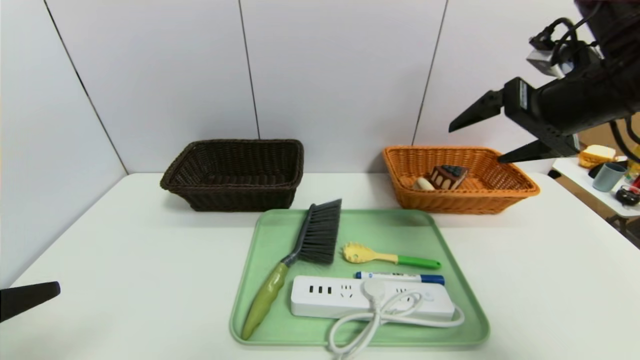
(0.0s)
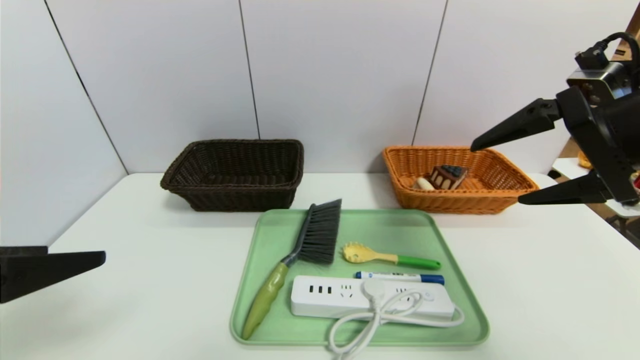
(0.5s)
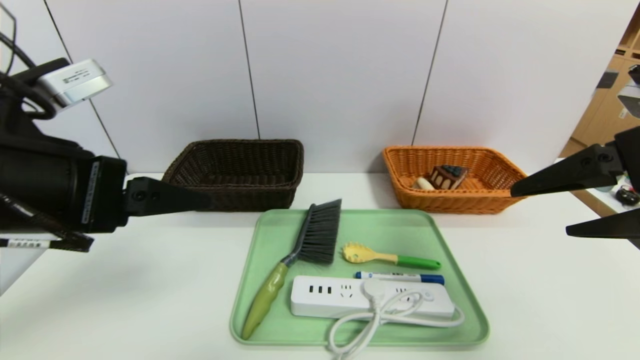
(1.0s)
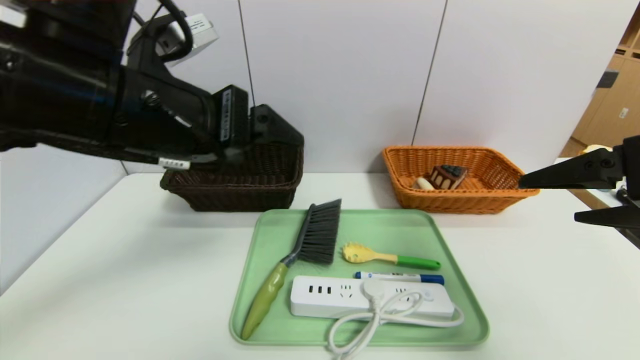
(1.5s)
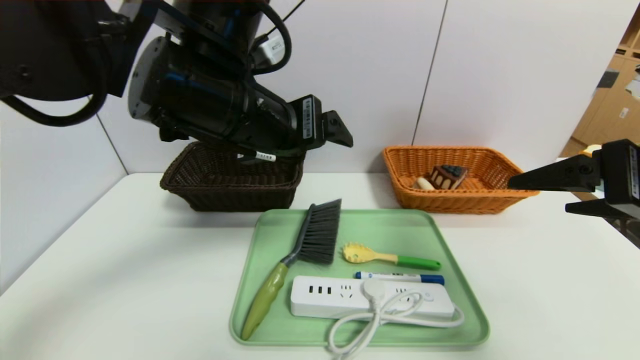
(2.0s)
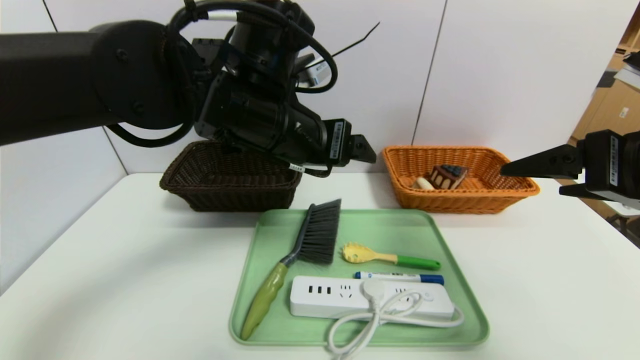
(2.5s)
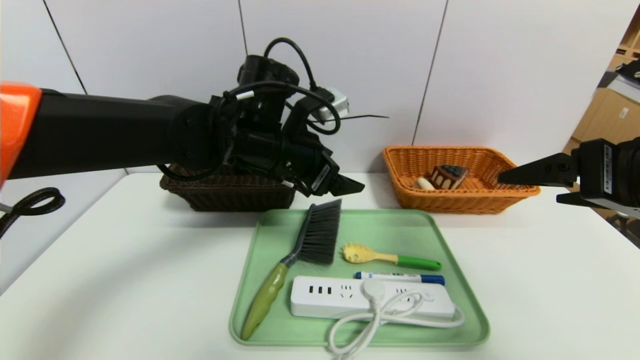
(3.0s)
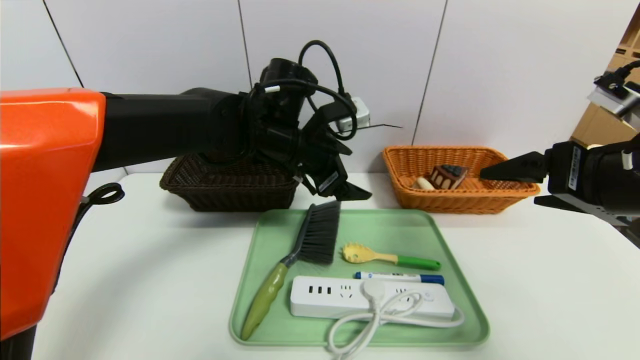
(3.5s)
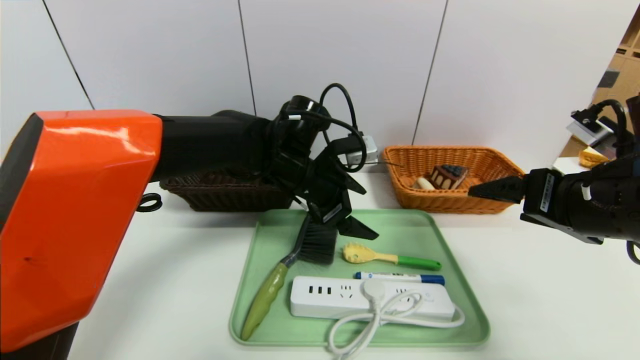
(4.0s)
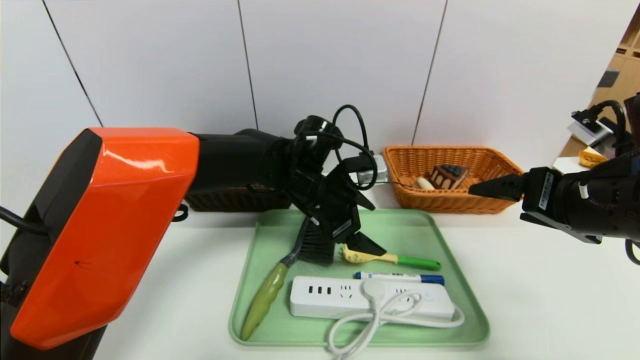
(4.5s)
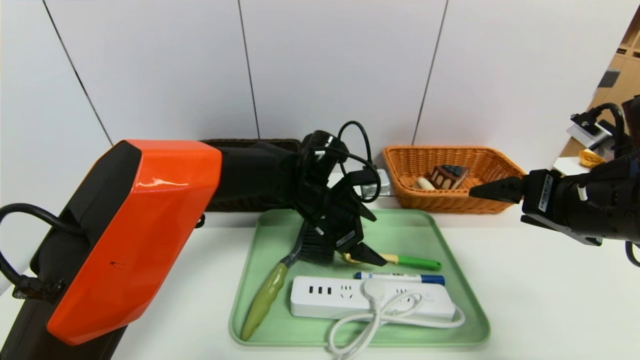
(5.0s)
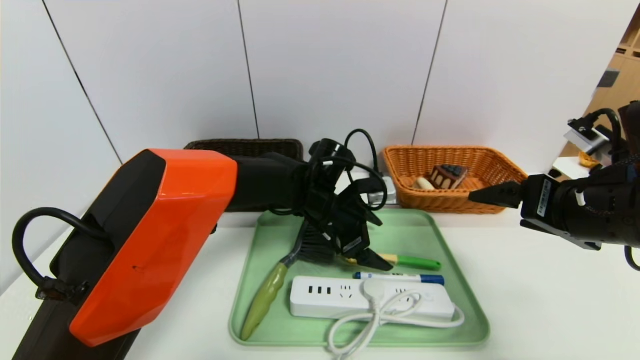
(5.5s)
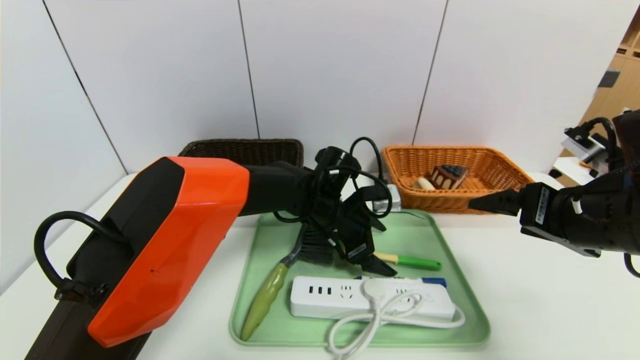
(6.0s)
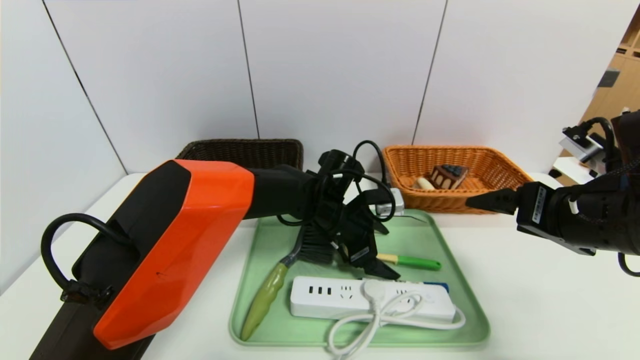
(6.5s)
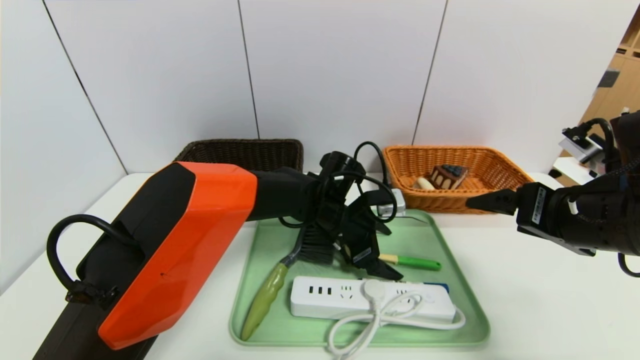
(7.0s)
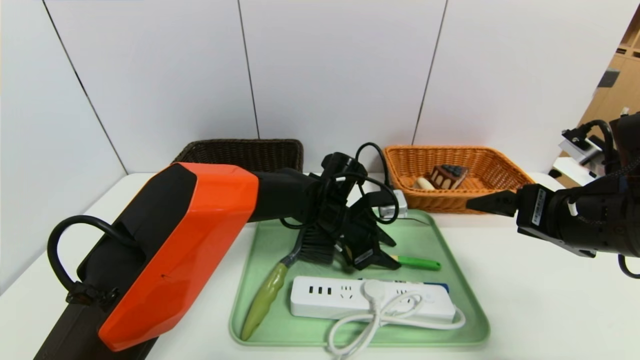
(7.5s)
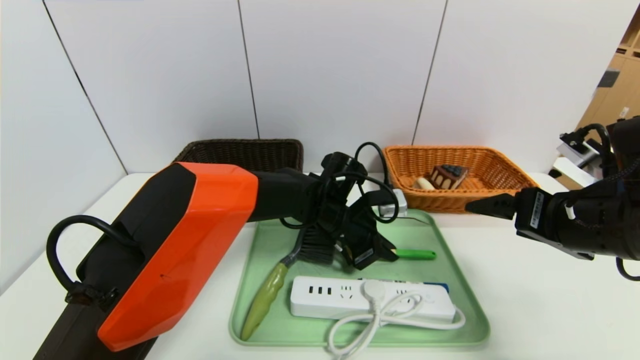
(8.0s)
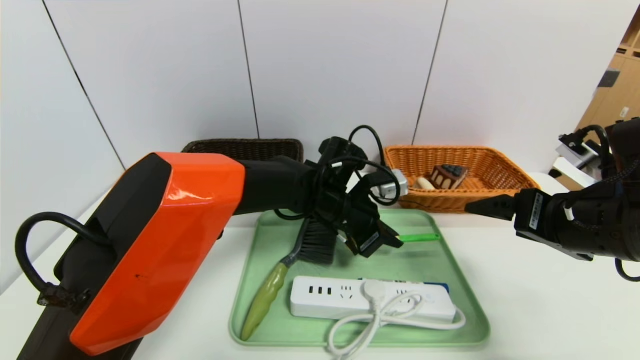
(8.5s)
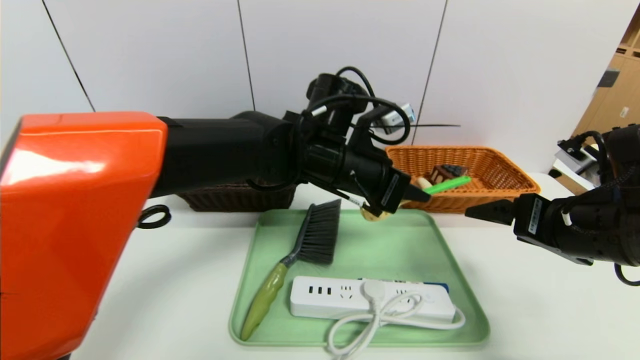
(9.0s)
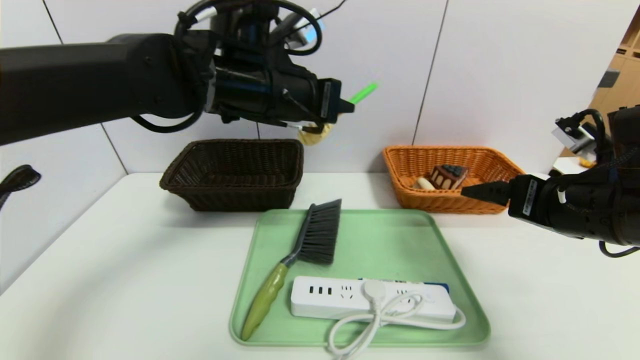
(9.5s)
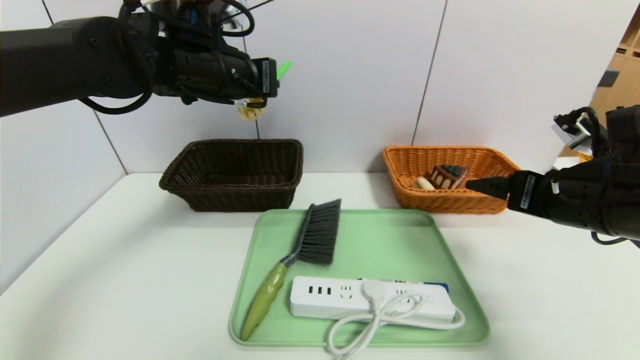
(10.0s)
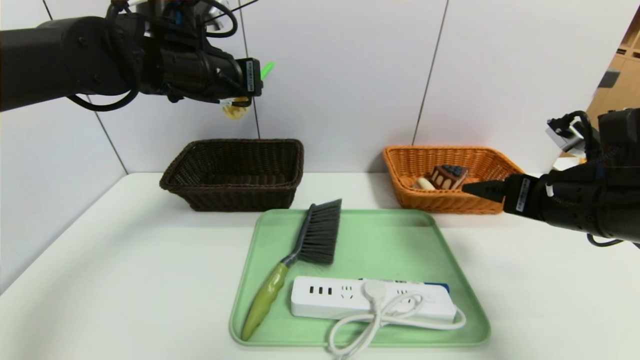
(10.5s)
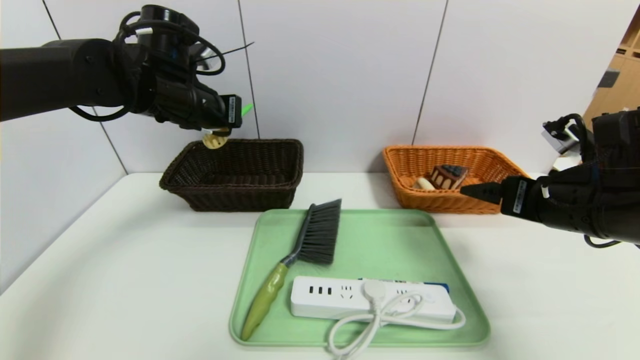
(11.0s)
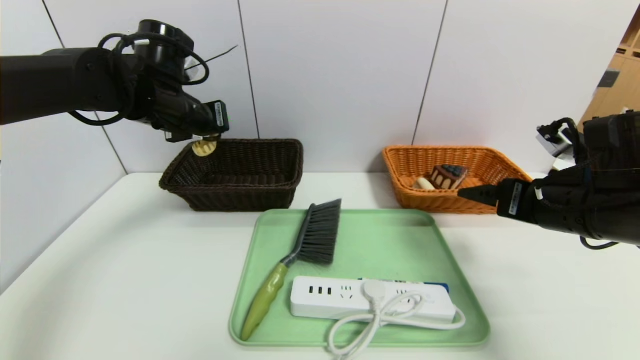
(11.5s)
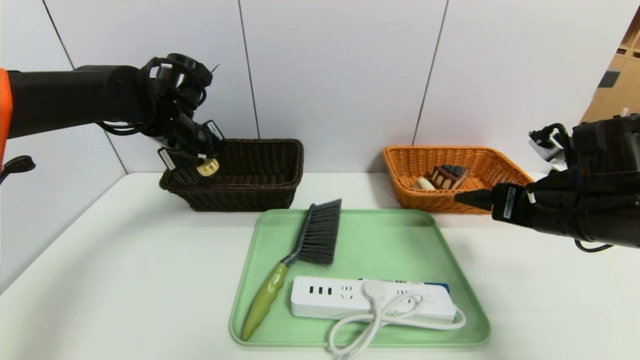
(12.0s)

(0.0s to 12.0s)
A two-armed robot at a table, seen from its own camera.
Task of the whole recording: place the food in the right basket with the right gripper, and place the non food items in the left basket with the left gripper.
0.0s - 2.0s: The left gripper heads to the right and forward, covering approximately 30 cm. The right gripper moves backward, about 10 cm.
2.0s - 4.0s: The right gripper travels downward by approximately 5 cm, while the left gripper shifts approximately 15 cm downward, forward and to the right.
4.0s - 6.0s: The left gripper is displaced downward by about 10 cm.
6.0s - 8.0s: The left gripper closes up.
8.0s - 10.0s: The left gripper goes about 30 cm upward and to the left.
10.0s - 12.0s: The left gripper goes about 10 cm downward and to the left.

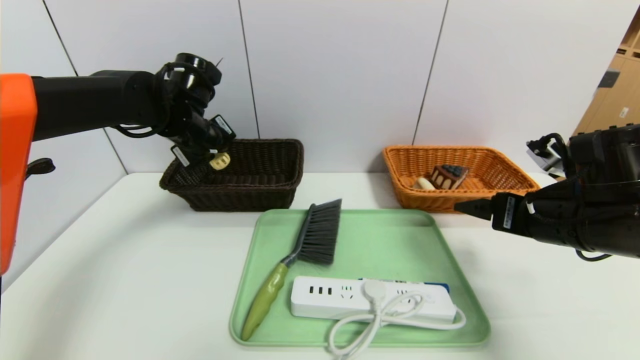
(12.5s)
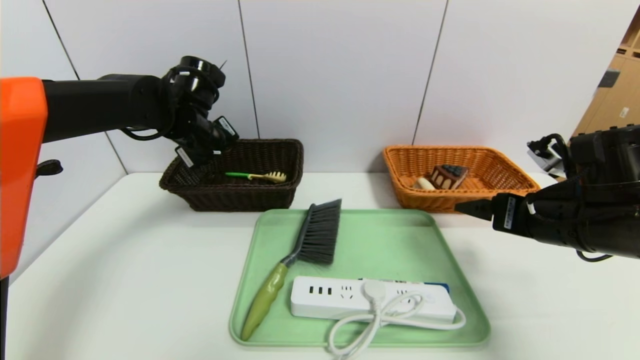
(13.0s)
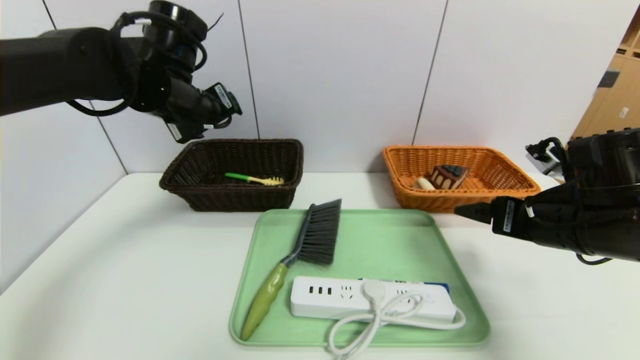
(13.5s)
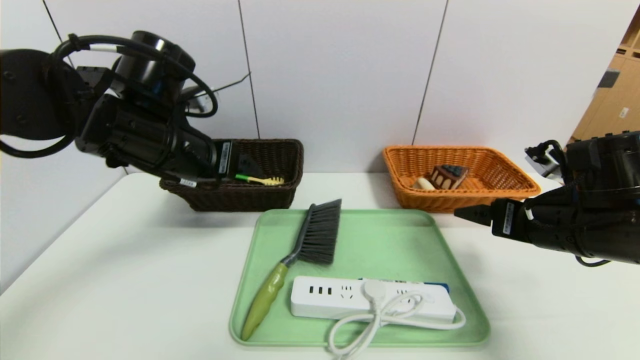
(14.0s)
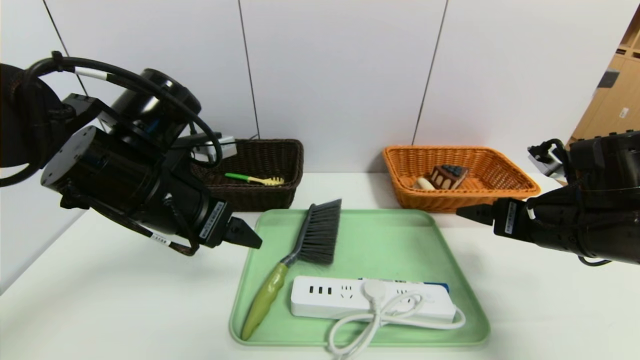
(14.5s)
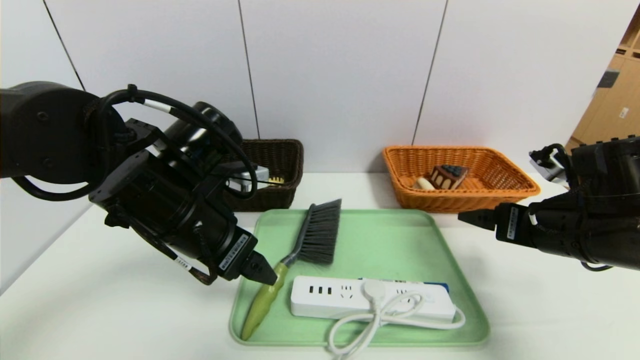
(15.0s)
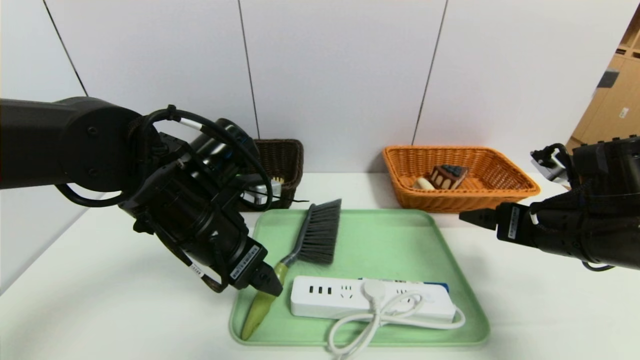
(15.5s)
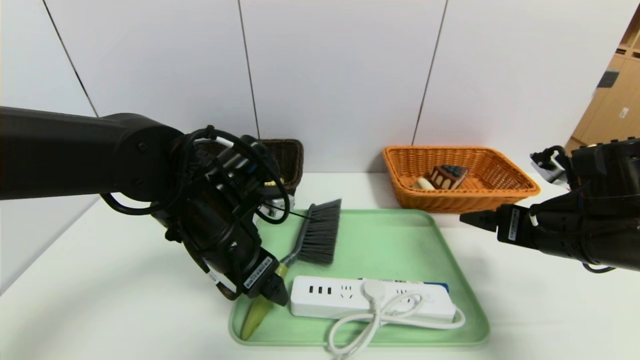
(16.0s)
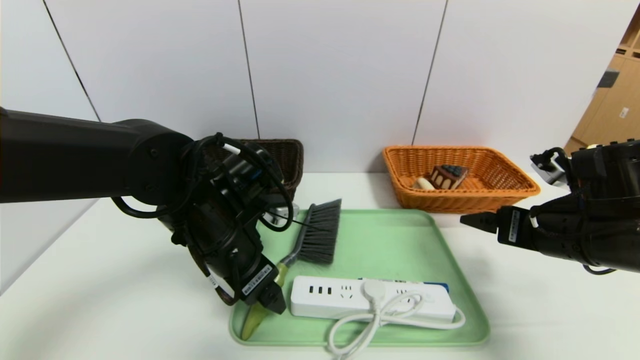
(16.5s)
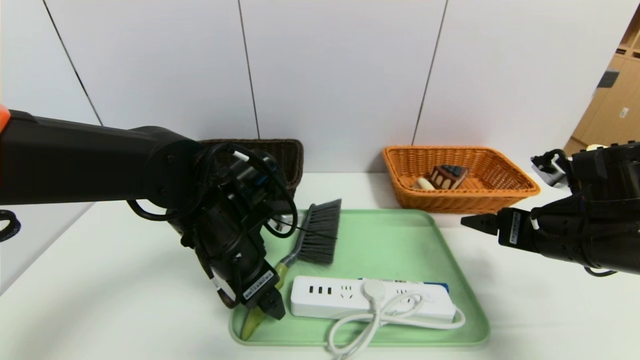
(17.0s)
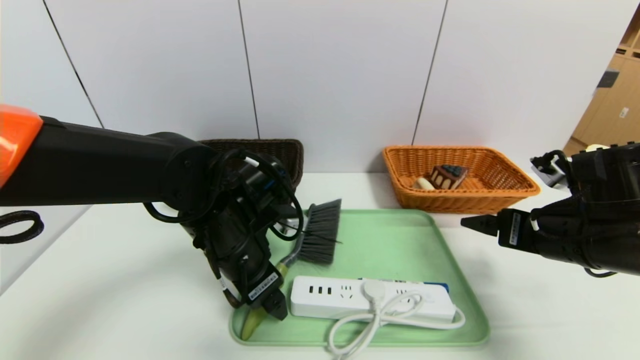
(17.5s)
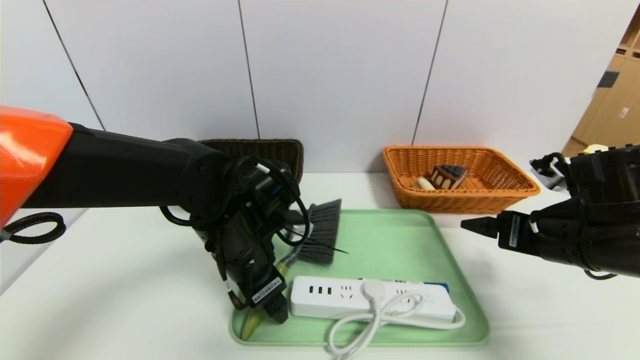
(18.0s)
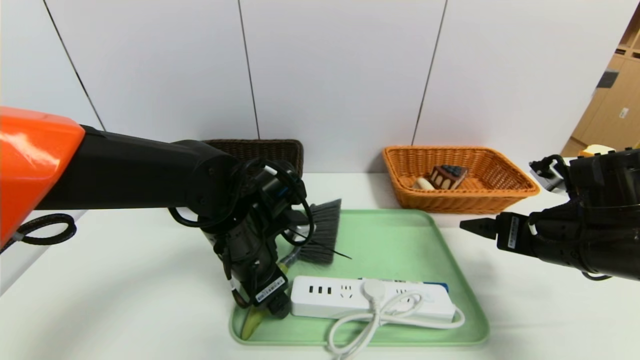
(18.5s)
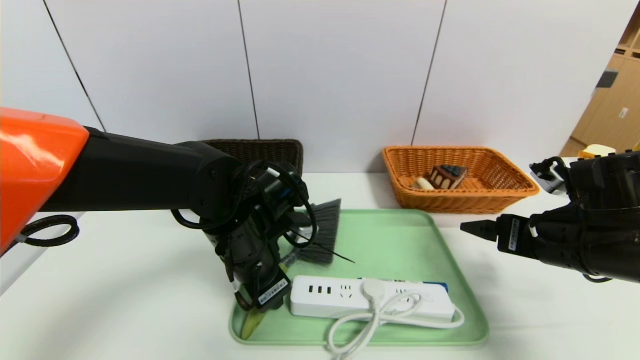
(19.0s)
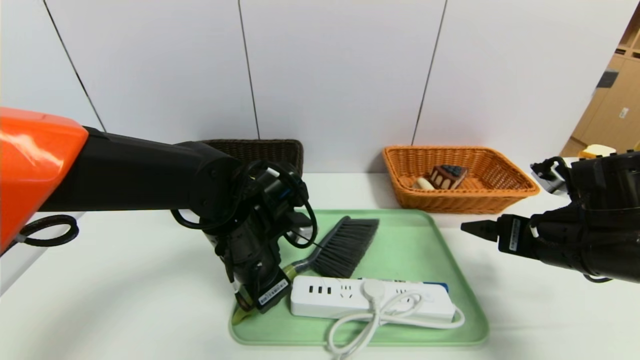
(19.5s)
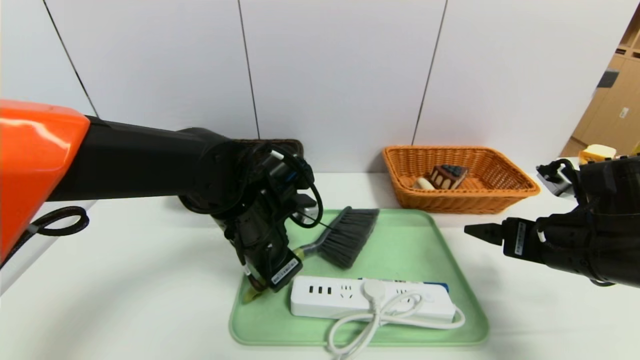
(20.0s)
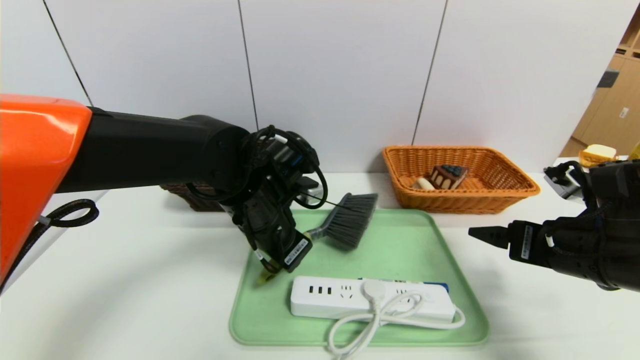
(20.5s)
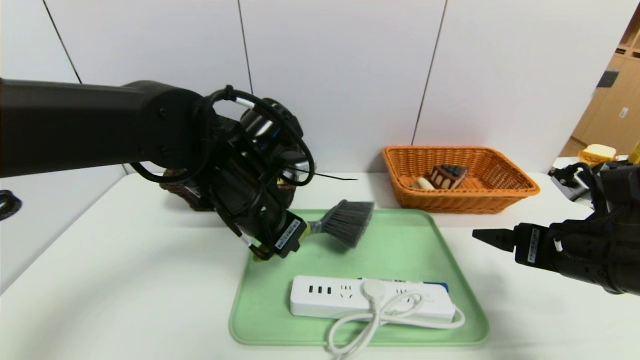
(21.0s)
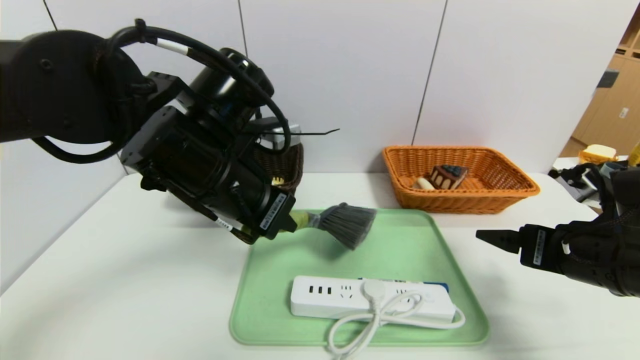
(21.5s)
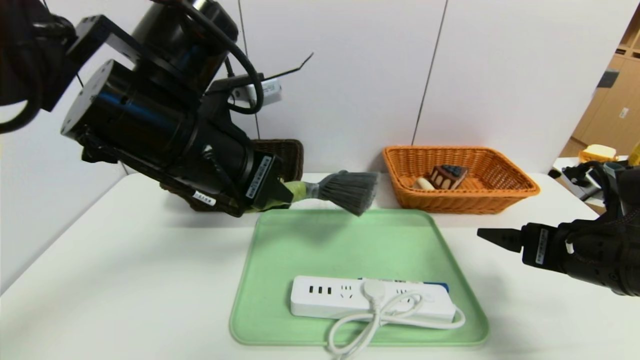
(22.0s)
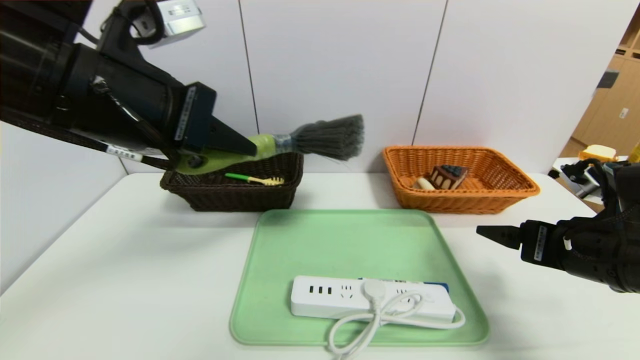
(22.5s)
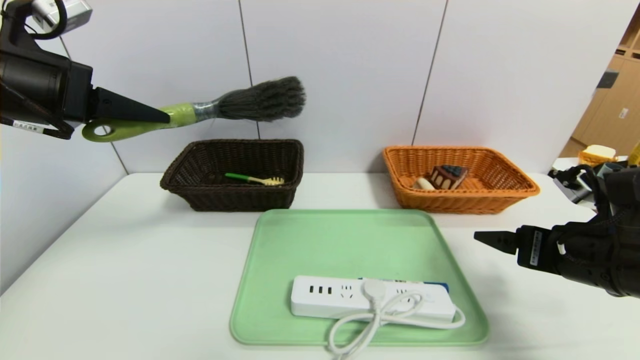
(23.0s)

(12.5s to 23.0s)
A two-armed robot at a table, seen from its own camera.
Task of the whole recording: place the food in the right basket with the right gripper, and place the non food items in the left basket with the left gripper.
12.5s - 14.5s: The left gripper heads backward, covering some 15 cm, and opens up.
14.5s - 16.5s: The left gripper heads downward and to the right, covering approximately 10 cm.
16.5s - 19.0s: The left gripper closes up.
19.0s - 21.0s: The left gripper goes some 10 cm upward.
21.0s - 23.0s: The left gripper is displaced to the left and upward by roughly 25 cm.
